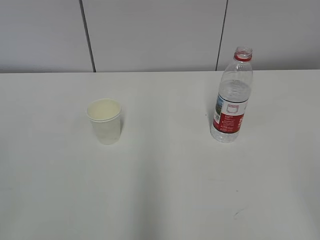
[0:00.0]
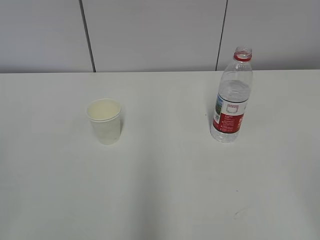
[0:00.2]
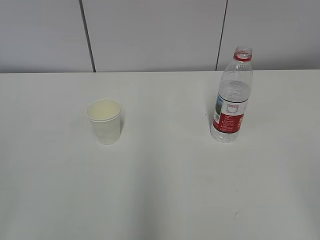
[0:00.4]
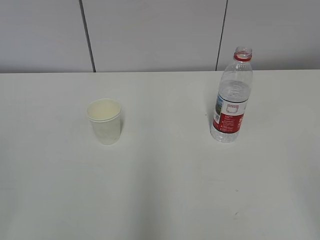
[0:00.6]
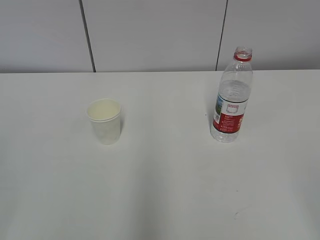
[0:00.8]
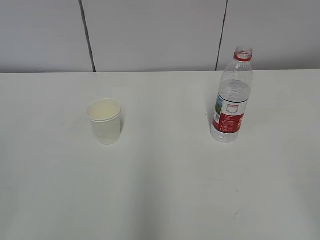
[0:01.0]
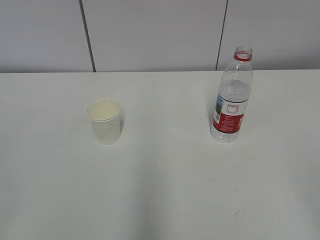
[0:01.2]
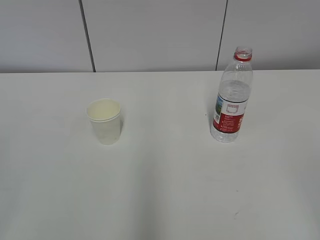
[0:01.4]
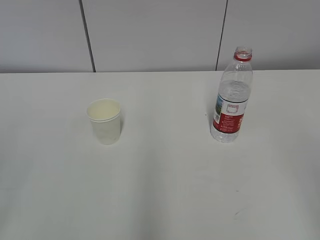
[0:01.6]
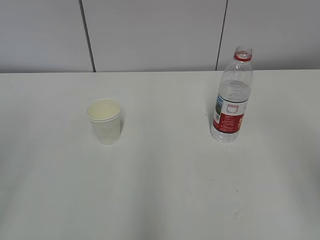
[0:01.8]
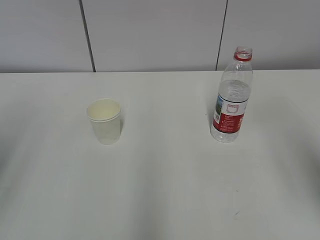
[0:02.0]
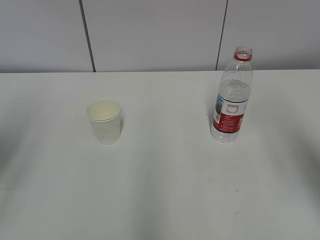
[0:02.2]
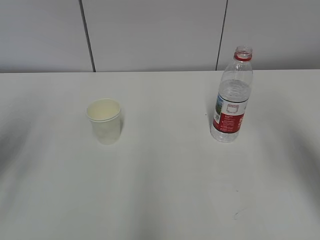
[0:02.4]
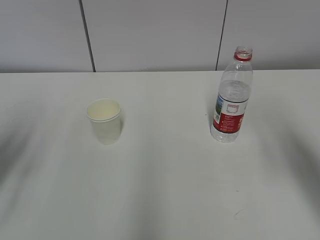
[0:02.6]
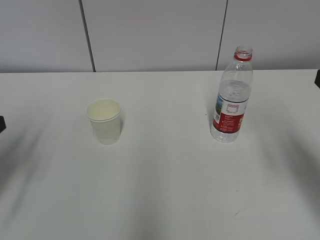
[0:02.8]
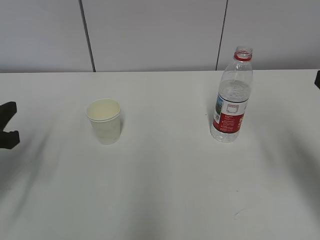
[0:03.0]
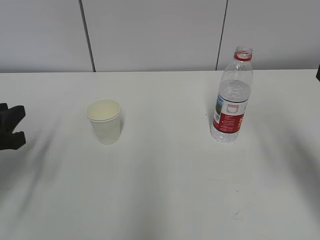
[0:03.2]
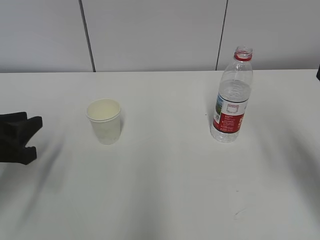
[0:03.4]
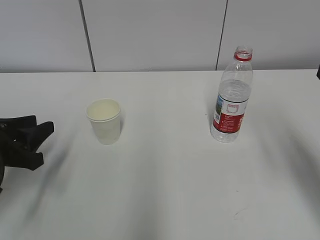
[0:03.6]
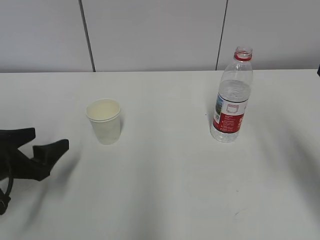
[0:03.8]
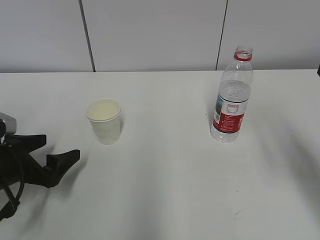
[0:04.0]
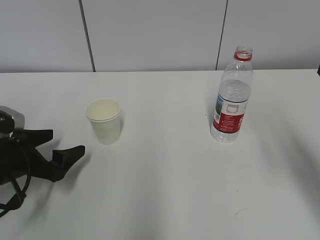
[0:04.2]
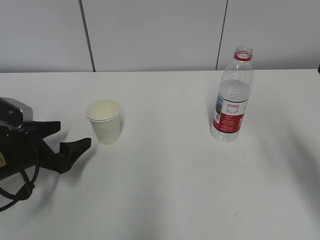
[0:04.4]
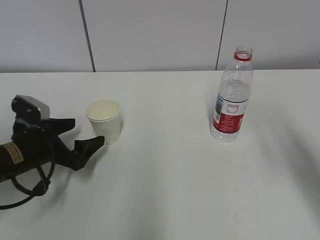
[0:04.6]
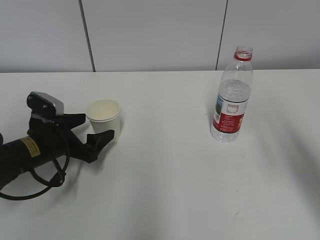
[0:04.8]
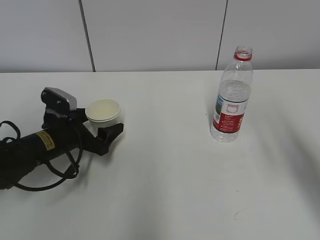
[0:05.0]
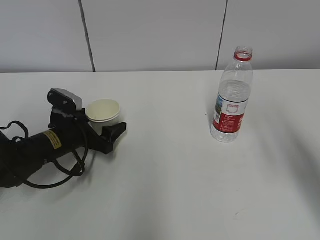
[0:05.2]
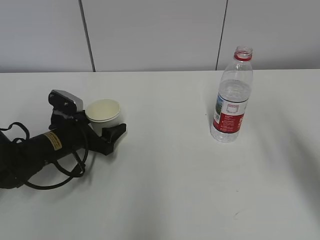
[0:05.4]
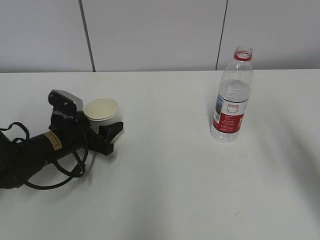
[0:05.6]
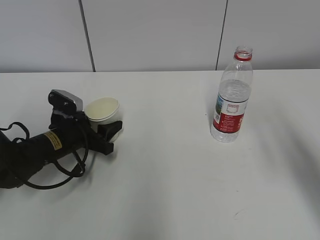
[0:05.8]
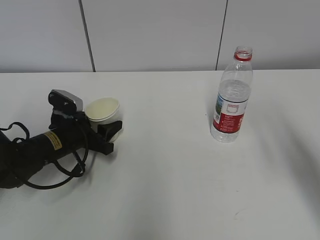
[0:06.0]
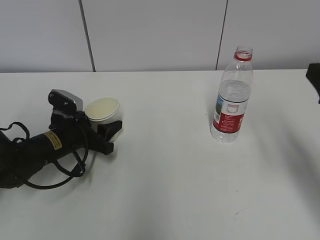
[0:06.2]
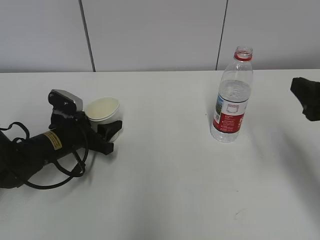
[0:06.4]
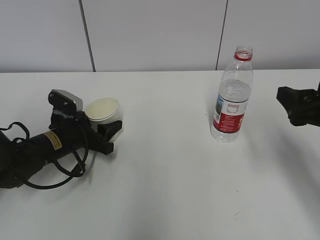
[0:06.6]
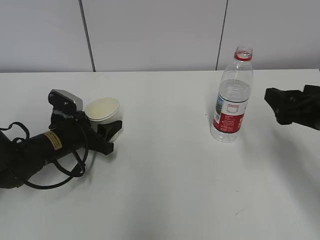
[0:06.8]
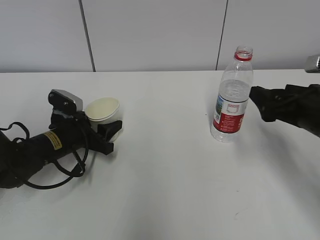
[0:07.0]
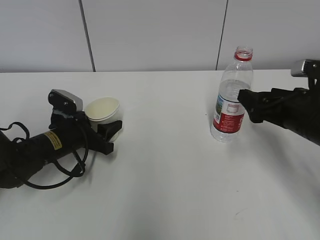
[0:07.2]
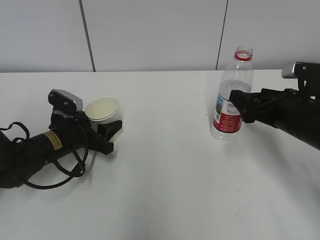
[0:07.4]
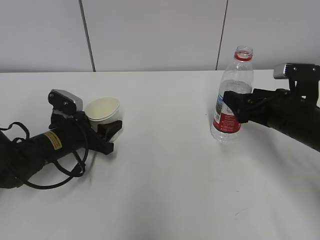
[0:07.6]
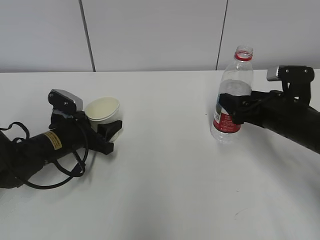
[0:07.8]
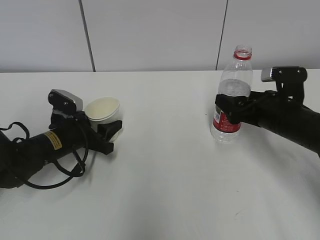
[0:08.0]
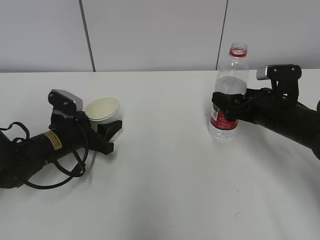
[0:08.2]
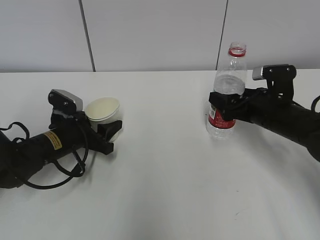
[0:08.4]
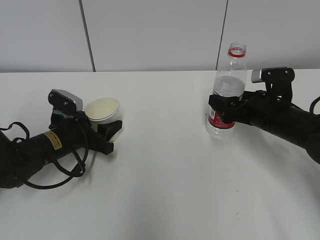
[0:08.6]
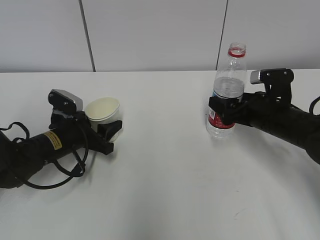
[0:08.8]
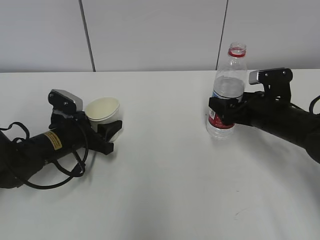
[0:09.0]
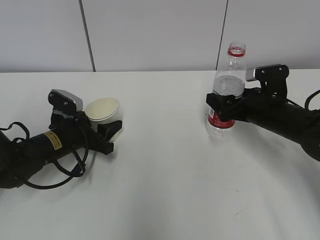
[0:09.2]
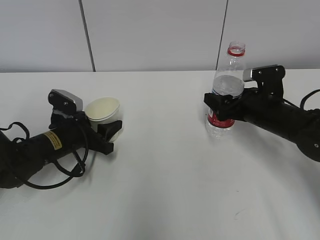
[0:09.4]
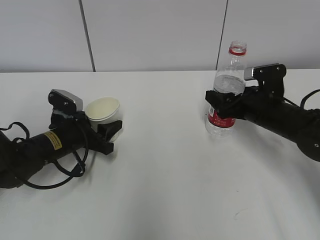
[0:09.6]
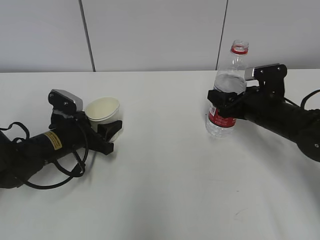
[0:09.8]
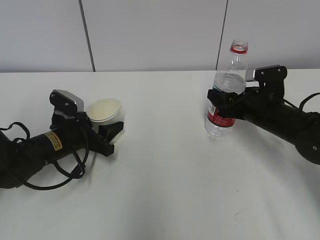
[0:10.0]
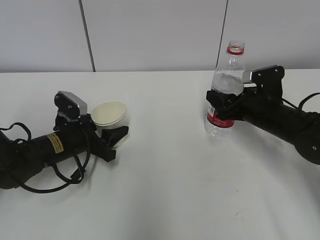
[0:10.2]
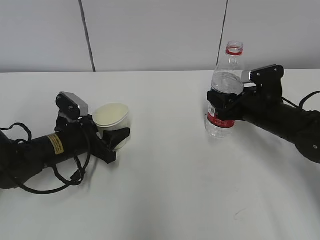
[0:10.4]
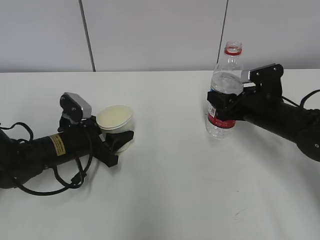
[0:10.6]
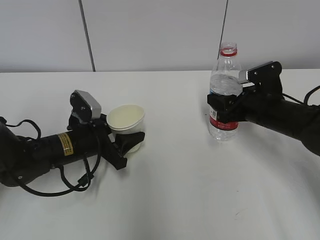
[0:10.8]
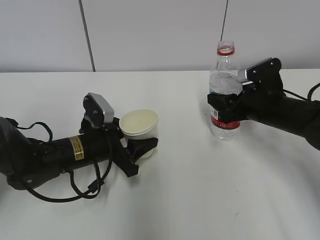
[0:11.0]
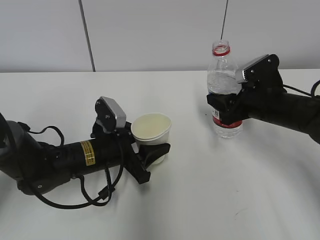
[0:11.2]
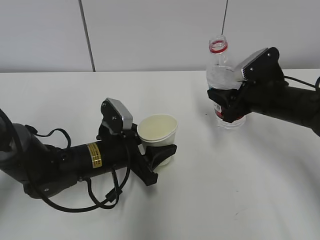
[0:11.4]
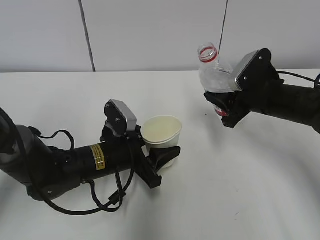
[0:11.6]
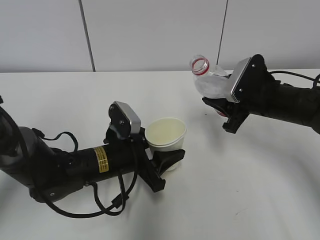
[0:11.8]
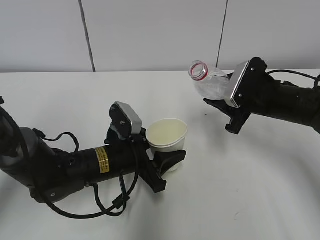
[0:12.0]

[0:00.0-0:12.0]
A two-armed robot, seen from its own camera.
Step, 0:00.0 to 0:08.6: Grab the paper cup with the left hand.
Step, 0:09.2 to 0:11.8: Lift the paper cup with the left hand.
0:01.6 to 0:03.0: The left gripper goes some 25 cm forward and downward. The right gripper moves forward, some 15 cm.
0:03.0 to 0:04.4: The left gripper moves downward and forward, about 10 cm, and opens its fingers.
0:04.4 to 0:06.0: The left gripper heads forward and to the right, covering roughly 10 cm, and closes up.
0:06.0 to 0:07.6: The right gripper goes some 20 cm downward and forward.
0:07.6 to 0:09.0: The right gripper moves roughly 5 cm.
0:09.0 to 0:10.4: The right gripper closes up.
0:10.4 to 0:12.0: The left gripper shifts some 10 cm to the right and backward.

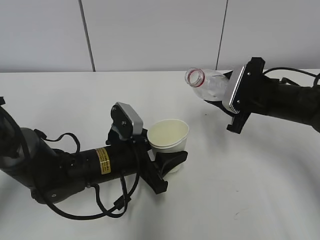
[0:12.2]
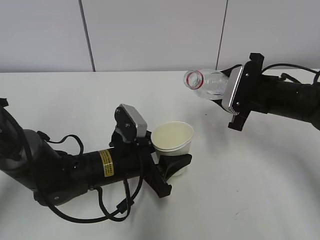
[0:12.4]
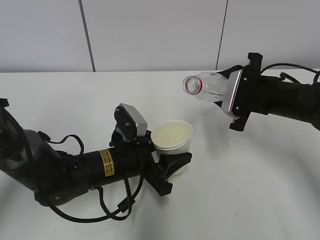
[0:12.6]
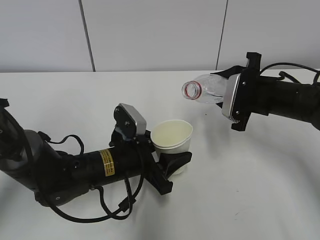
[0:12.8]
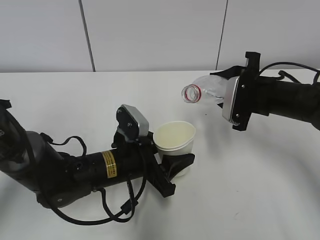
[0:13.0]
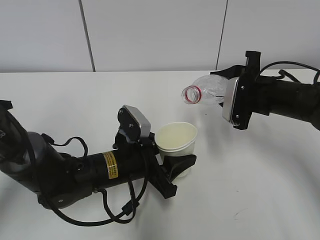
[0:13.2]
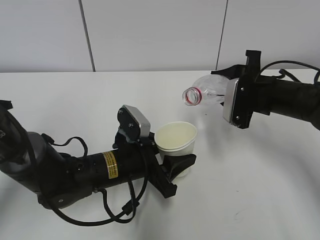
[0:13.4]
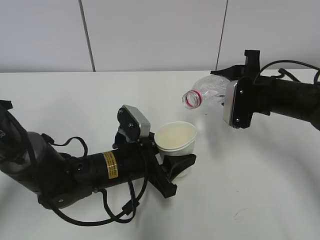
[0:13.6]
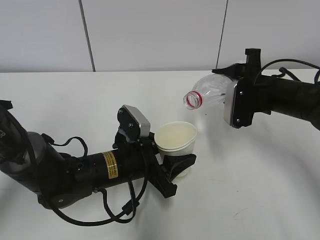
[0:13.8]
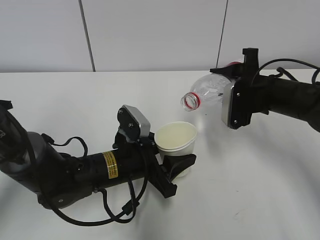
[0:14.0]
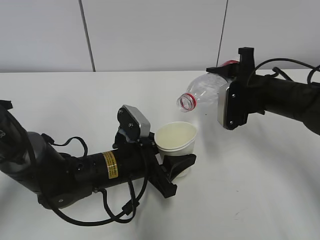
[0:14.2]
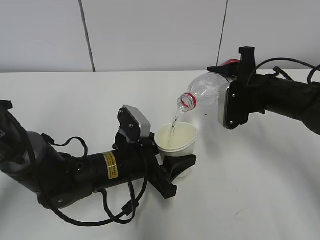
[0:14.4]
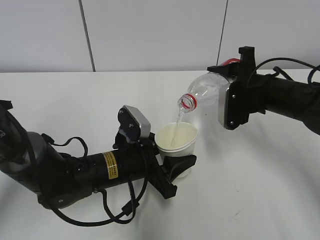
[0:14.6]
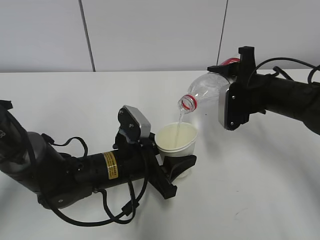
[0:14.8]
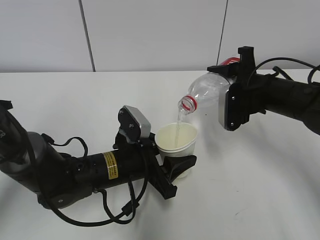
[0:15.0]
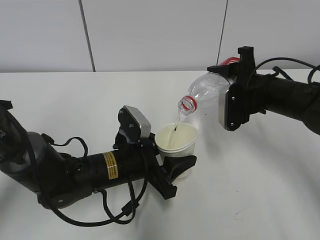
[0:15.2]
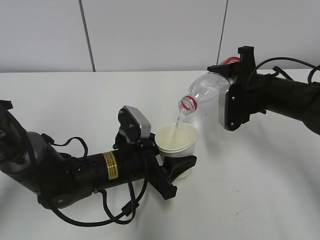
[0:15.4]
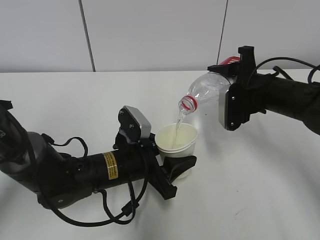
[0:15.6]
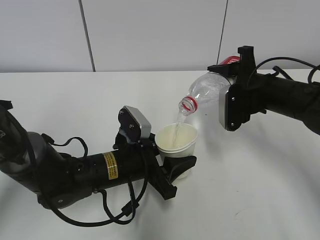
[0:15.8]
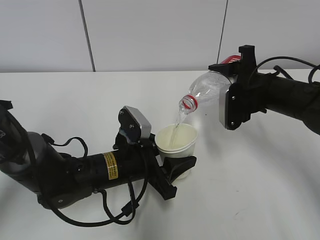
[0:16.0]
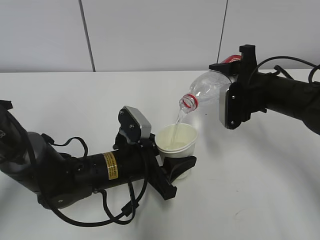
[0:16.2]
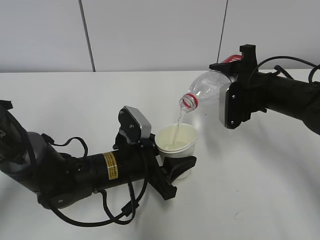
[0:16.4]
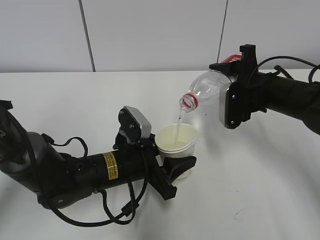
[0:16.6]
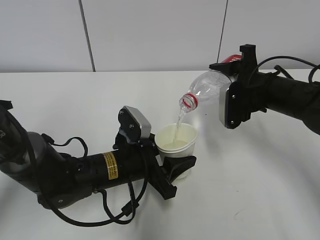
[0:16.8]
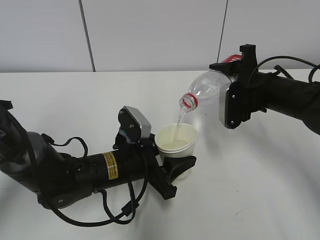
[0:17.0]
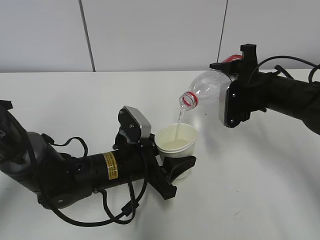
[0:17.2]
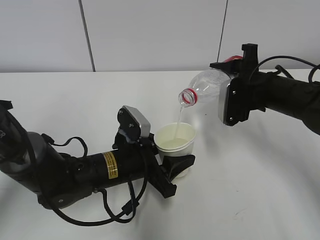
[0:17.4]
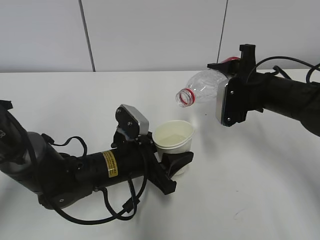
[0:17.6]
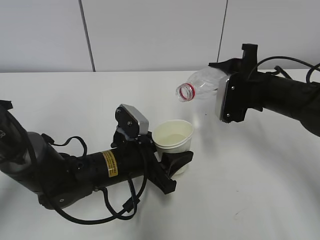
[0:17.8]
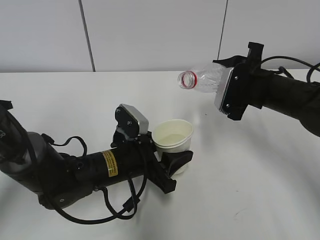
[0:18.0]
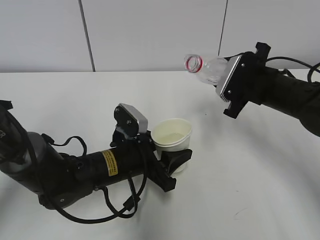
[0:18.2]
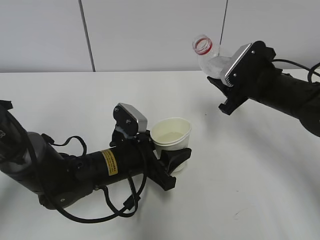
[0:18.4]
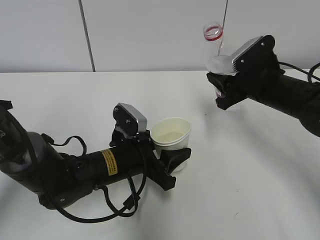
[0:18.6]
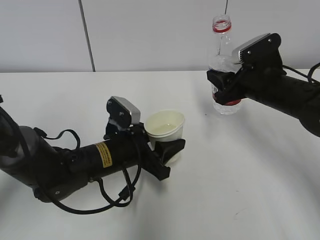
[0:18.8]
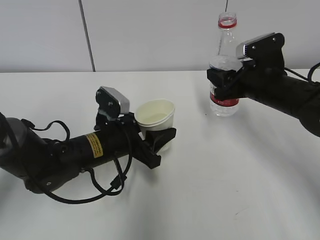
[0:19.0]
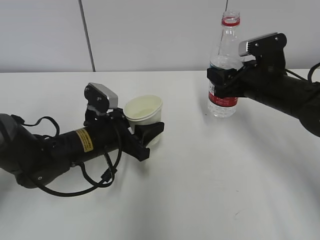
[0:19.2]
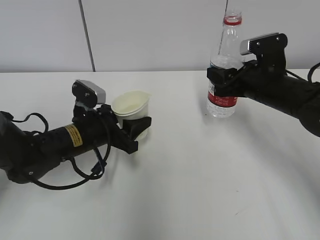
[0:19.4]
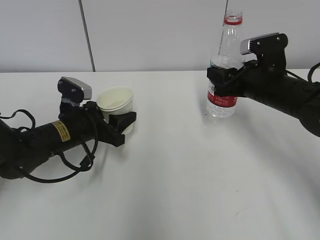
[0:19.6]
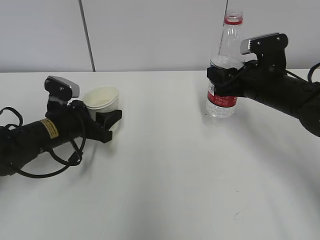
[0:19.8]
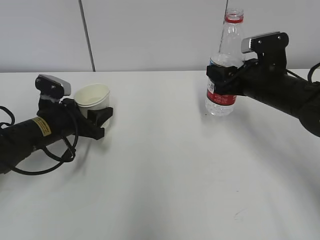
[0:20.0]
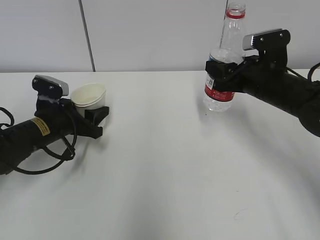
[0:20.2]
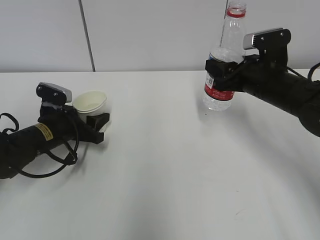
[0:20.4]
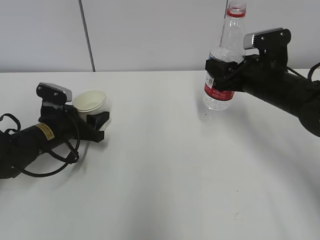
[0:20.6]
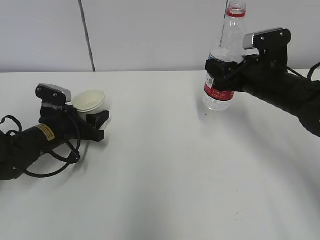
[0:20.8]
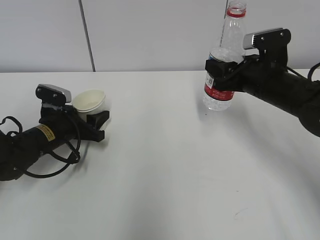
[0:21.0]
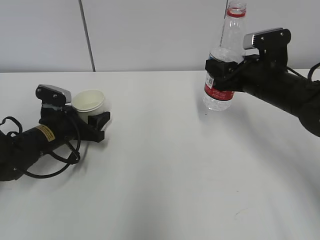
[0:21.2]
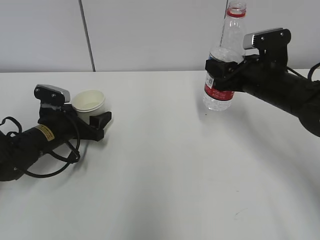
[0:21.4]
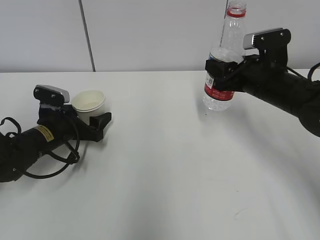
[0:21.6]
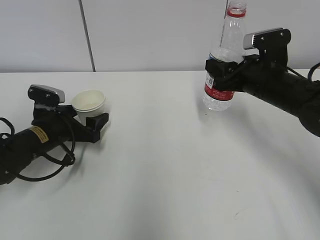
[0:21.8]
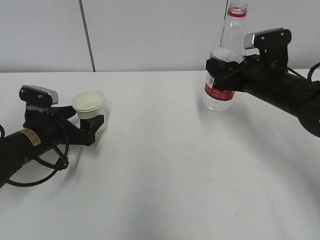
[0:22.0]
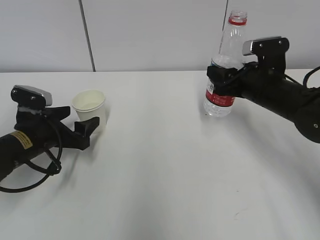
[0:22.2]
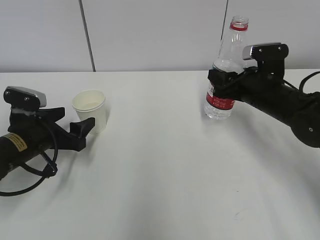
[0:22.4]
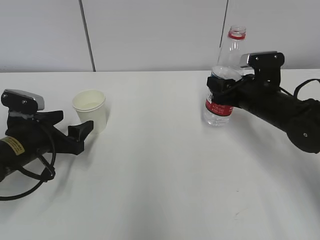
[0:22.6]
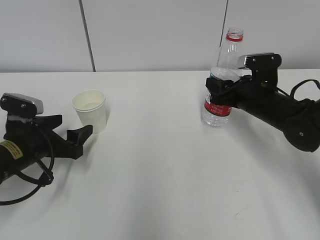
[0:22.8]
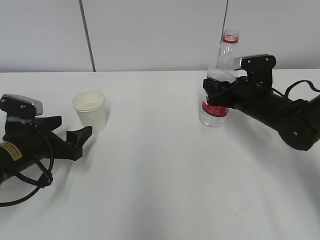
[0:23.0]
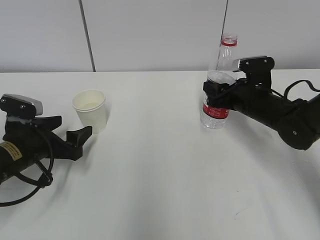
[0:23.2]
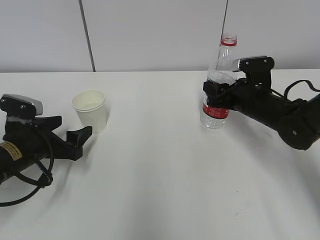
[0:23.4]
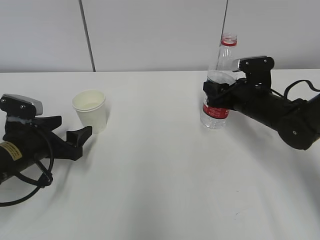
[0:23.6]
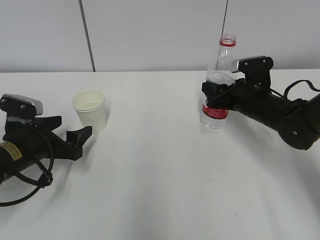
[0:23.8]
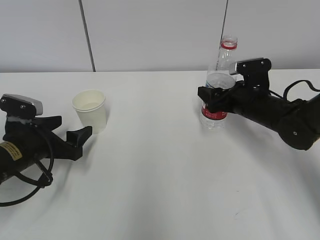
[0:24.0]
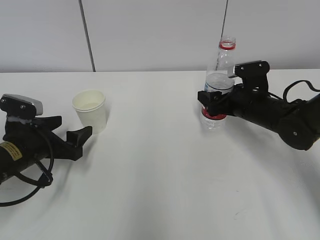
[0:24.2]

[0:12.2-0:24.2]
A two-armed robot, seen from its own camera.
Step, 0:12.2 to 0:14.6: Fill water with the left hand.
Step, 0:12.2 to 0:14.6: Pour water with the right hand.
Step, 0:14.8 to 0:16.0: Collect water with the right hand.
Step, 0:16.2 to 0:17.6: Place the paper cup with the left hand.
0:13.8 to 0:15.2: The grippers stay close to where they were, moving slightly.
0:15.2 to 0:16.6: Neither gripper changes place.
0:18.2 to 0:19.8: The left gripper shifts some 15 cm to the left and forward.
0:19.8 to 0:21.2: The grippers stay close to where they were, moving slightly.
0:21.2 to 0:22.6: The left gripper travels backward by some 5 cm.
0:22.6 to 0:24.2: The right gripper opens its fingers.
